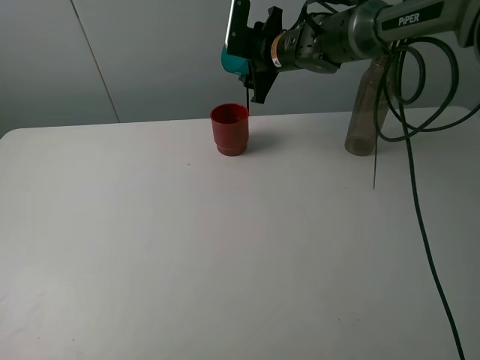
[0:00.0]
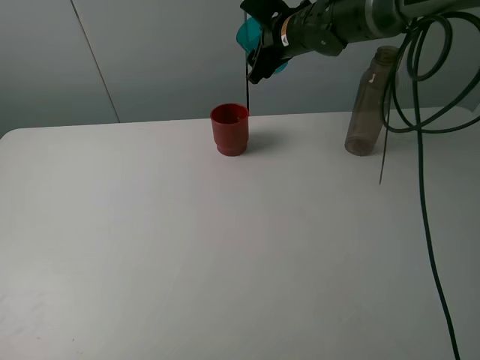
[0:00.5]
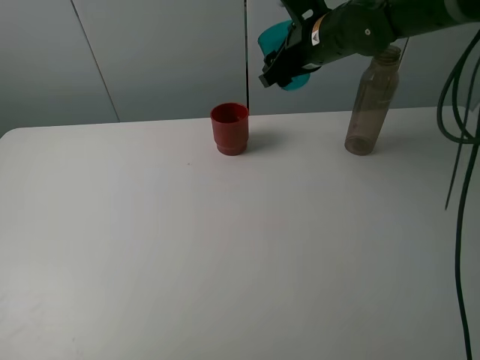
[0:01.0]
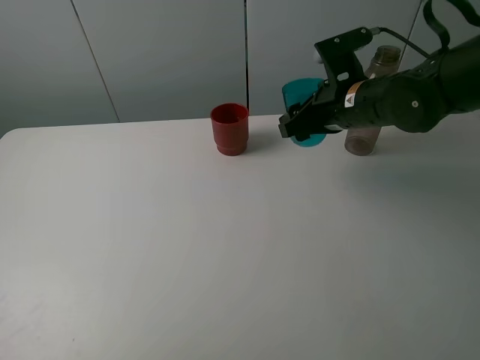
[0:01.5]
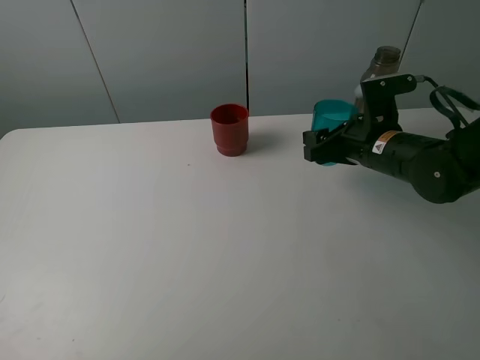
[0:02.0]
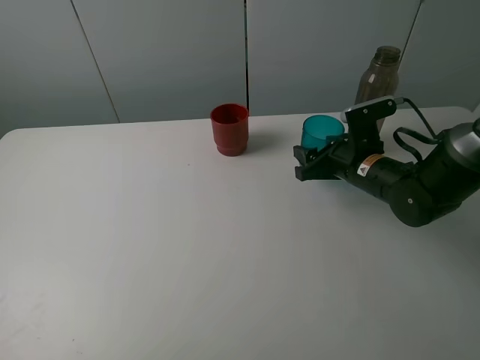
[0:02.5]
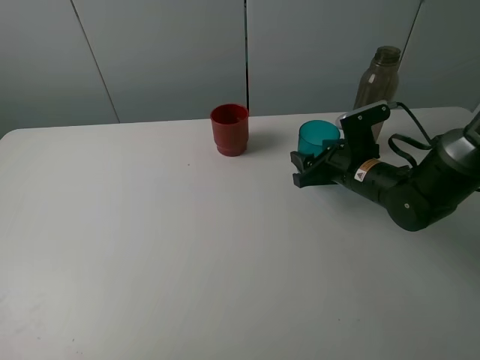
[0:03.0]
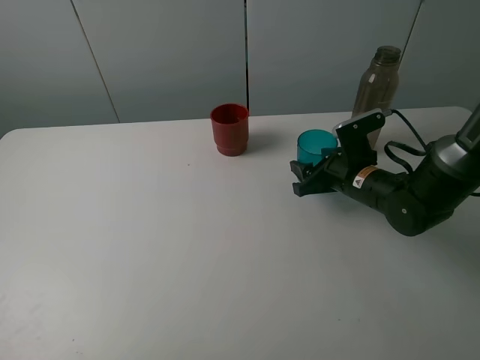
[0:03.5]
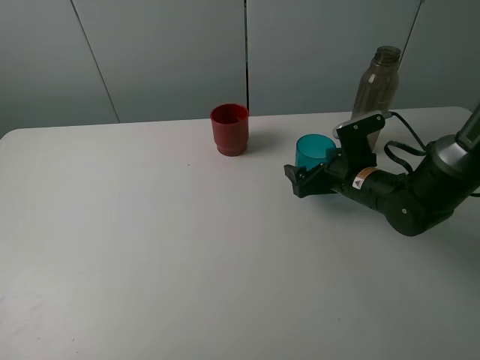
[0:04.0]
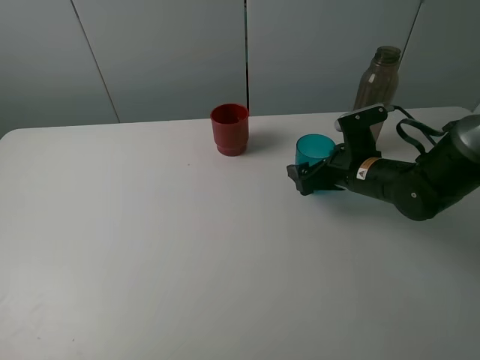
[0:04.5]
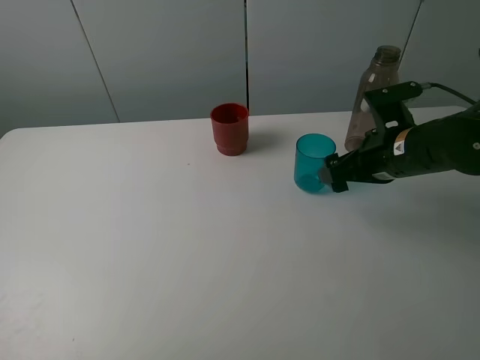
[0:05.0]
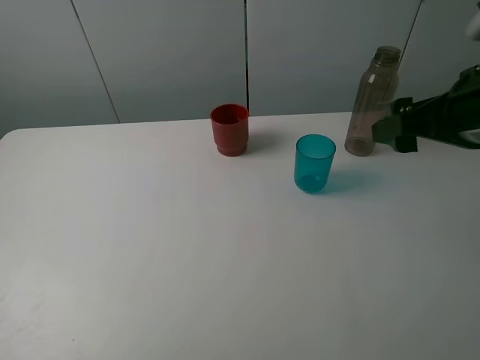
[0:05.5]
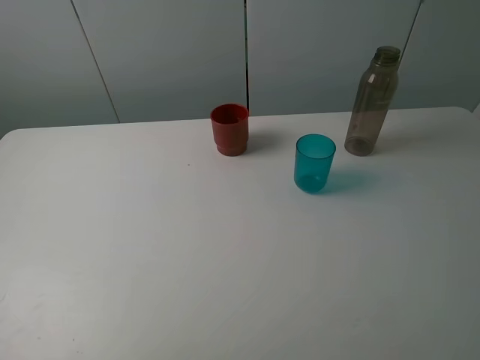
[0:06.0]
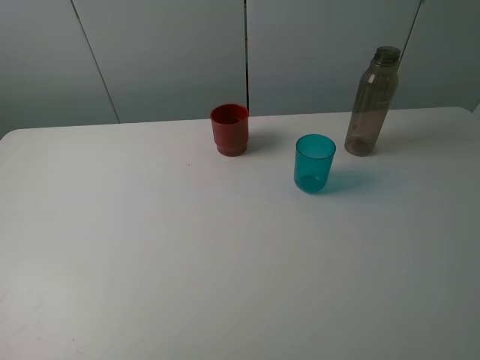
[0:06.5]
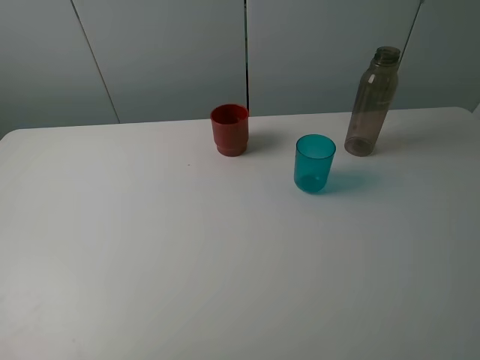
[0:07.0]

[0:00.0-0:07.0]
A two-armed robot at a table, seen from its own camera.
Task of the whole recording: pick up the bottle and pour water into the cup, then pick up the cup containing water and pour it into another cup.
Step, 0:00.0 to 0:04.0: Place the blue cup with the right gripper.
0:00.0 to 0:02.0: The right gripper travels backward and to the right by roughly 20 cm.
0:02.0 to 0:03.5: The right gripper shifts some 5 cm downward.
0:03.5 to 0:05.0: The right gripper goes approximately 10 cm upward, and opens up.
0:05.0 to 0:07.0: The right gripper moves backward and upward, roughly 30 cm.
